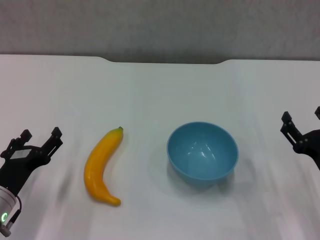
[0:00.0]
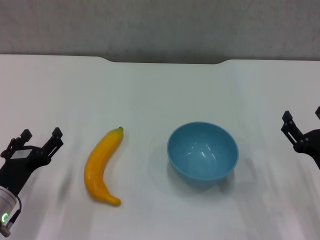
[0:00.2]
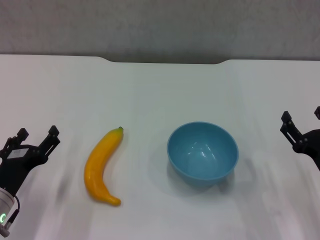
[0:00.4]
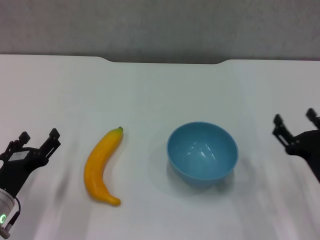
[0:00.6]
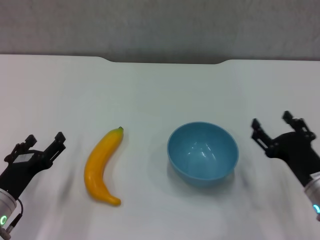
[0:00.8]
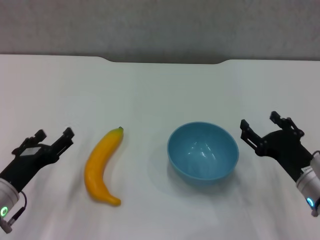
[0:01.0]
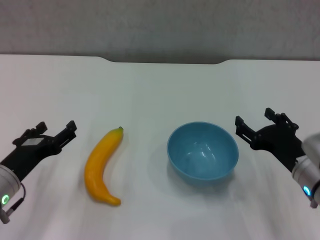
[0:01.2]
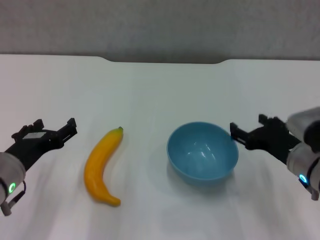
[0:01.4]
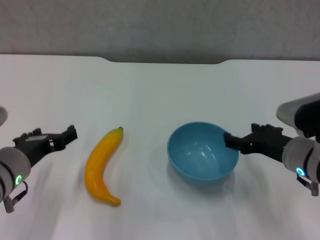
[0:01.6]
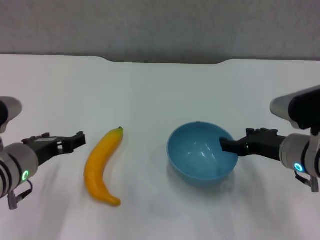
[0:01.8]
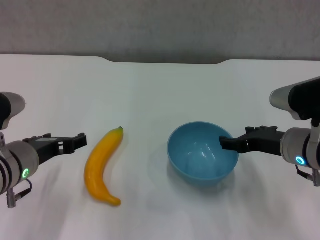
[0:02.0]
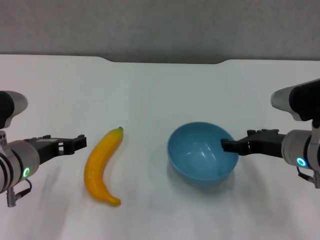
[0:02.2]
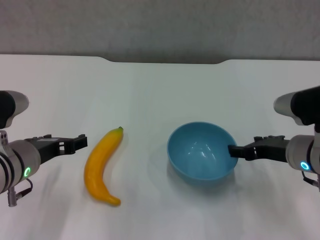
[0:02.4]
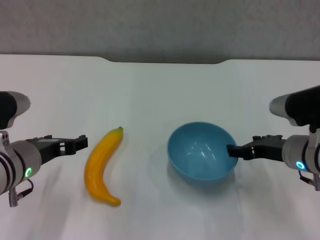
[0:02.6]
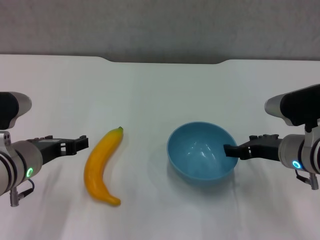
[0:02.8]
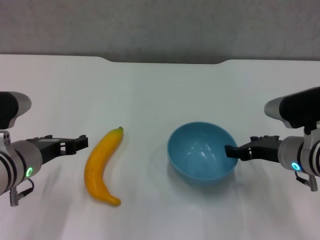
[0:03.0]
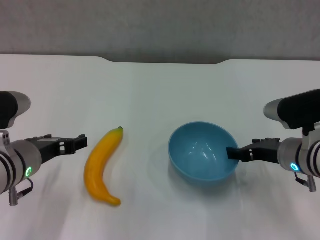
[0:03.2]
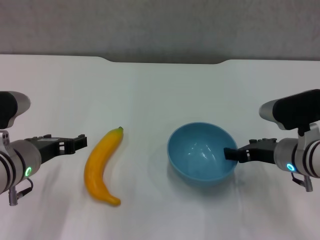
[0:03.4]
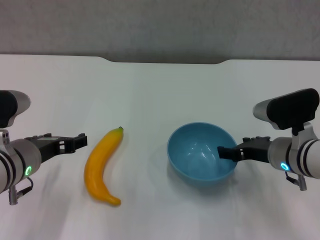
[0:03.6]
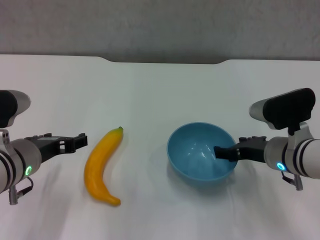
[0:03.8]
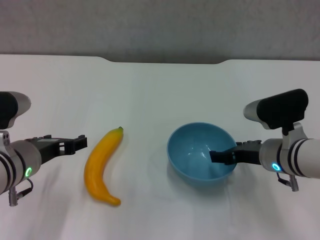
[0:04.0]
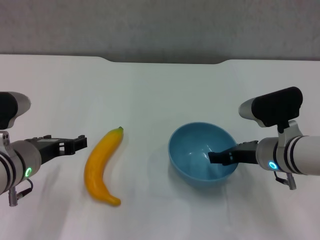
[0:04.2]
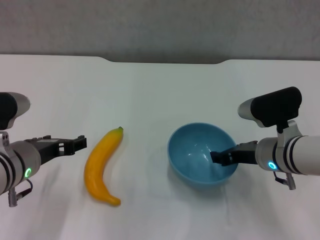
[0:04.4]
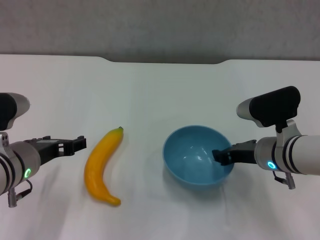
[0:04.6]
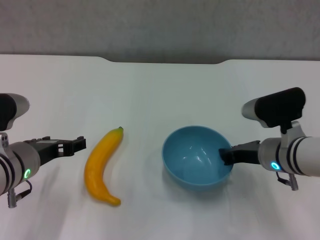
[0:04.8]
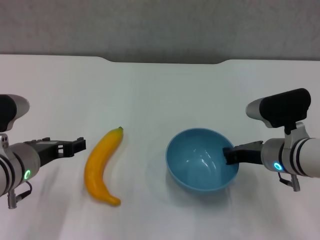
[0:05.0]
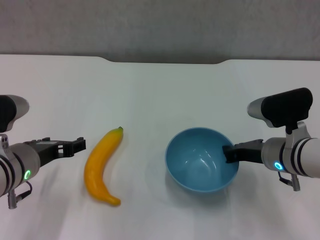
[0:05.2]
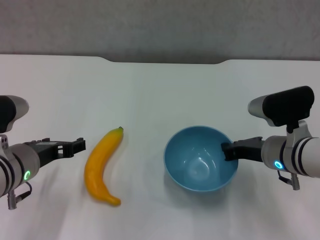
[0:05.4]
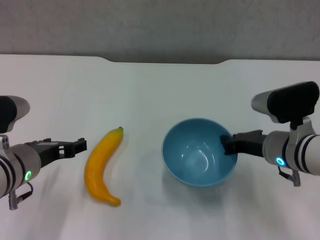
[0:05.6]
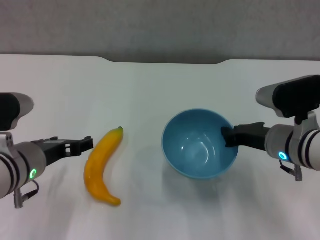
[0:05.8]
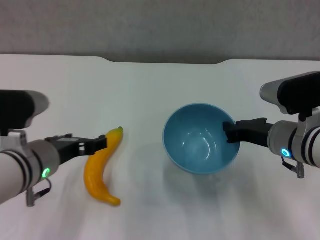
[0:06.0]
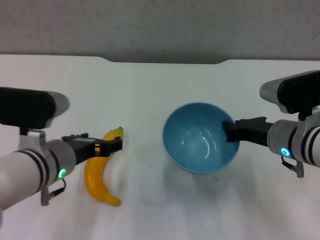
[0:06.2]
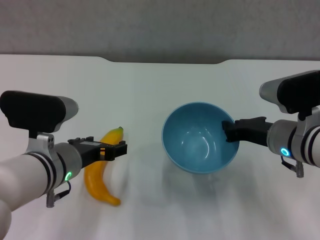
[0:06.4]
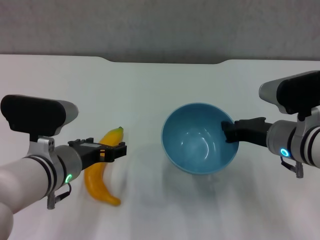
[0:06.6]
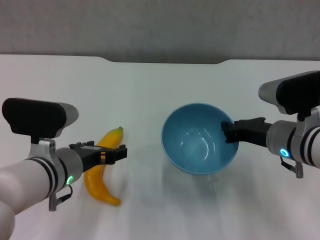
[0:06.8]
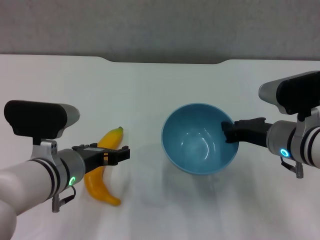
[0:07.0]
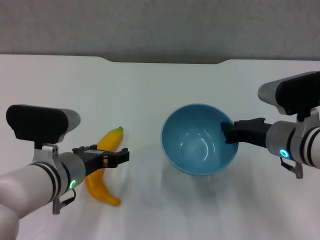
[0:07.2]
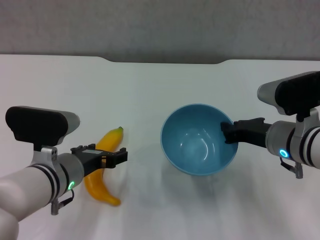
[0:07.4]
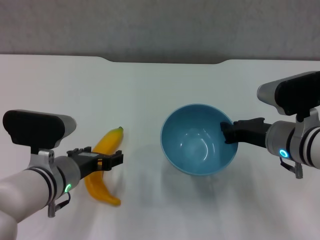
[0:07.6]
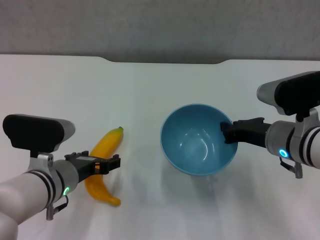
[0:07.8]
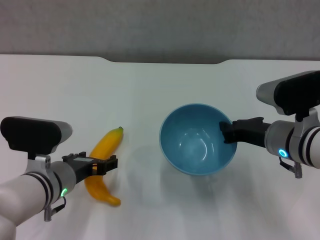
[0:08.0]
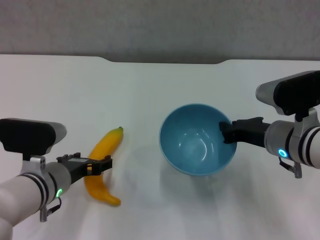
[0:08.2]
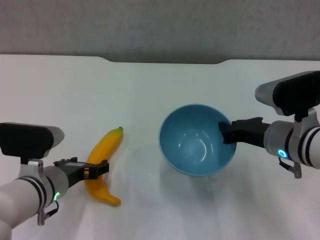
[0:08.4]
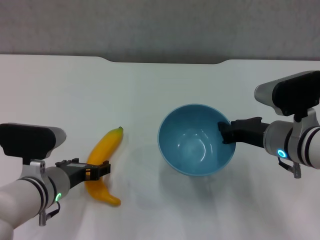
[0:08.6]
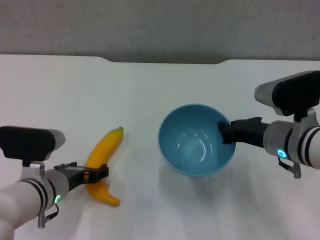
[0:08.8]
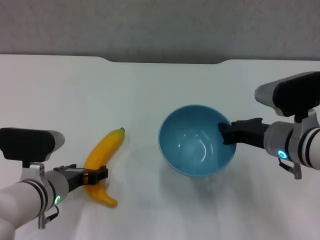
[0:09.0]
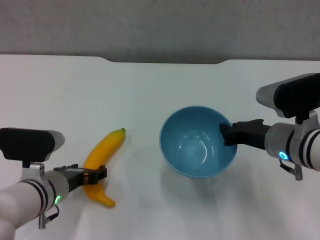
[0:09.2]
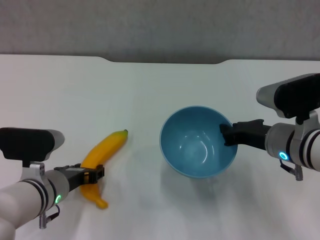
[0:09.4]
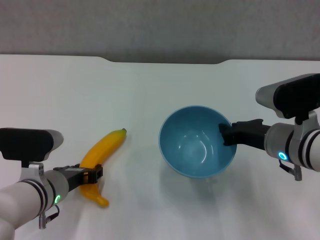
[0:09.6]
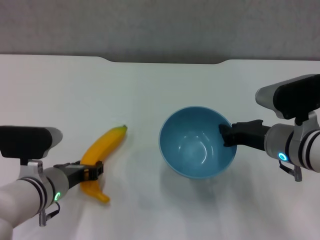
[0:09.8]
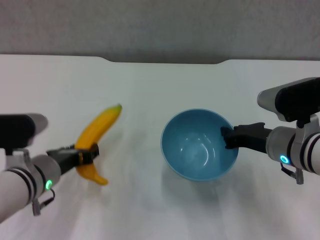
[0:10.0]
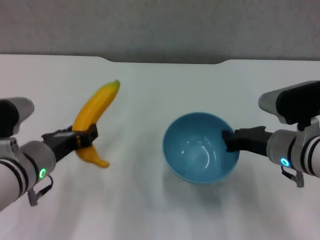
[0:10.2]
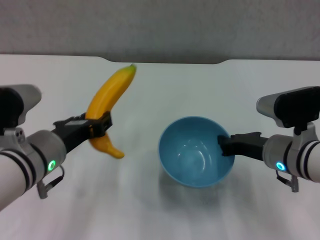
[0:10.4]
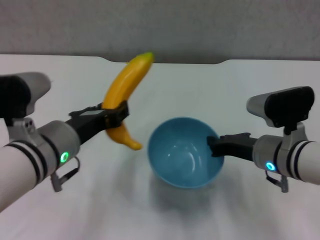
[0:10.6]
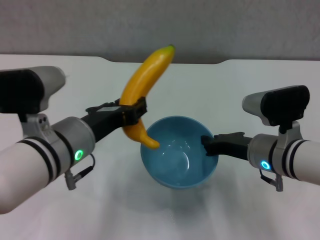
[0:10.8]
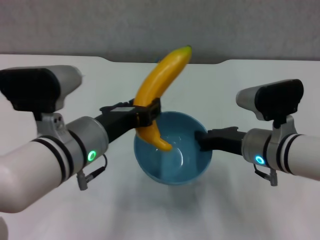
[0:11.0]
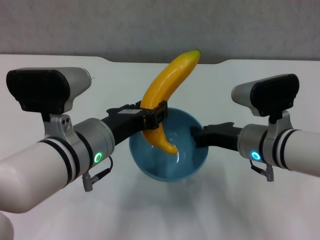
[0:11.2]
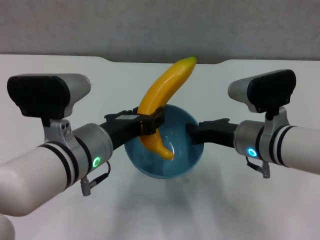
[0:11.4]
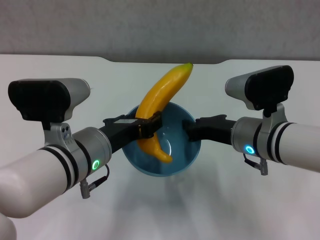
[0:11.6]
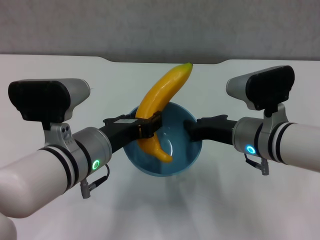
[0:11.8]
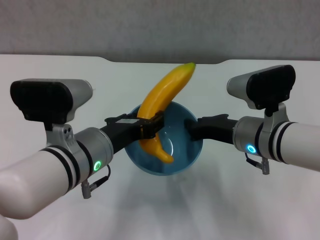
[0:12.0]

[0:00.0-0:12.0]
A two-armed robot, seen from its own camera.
Step, 0.0 to 4.8 s: Grasp the blue bowl with right gripper.
Step, 5.0 to 6.0 s: Lift the blue bowl with right gripper.
Step, 6.2 to 9.4 s: Grasp the banana with left gripper.
0.0 to 1.6 s: The left gripper travels upward by some 10 cm; the right gripper is displaced upward, forward and to the left by approximately 10 cm.
1.6 to 4.4 s: The grippers stay close to where they were, moving slightly.
4.4 to 6.0 s: The right gripper closes up.
6.0 to 7.6 s: The left gripper heads downward, covering roughly 5 cm.
7.6 to 9.0 s: There are only small adjustments of the grippers.
9.0 to 10.4 s: The left gripper goes about 10 cm upward, and closes its fingers.
10.4 to 12.0 s: The right gripper ends up about 5 cm from where it was. The left gripper travels to the right by approximately 5 cm.

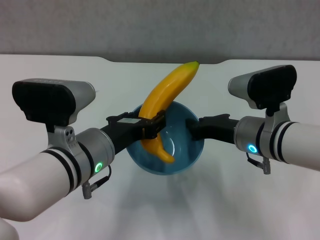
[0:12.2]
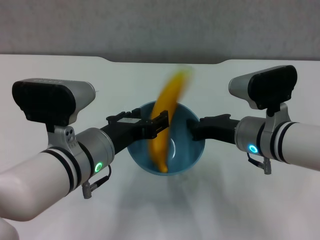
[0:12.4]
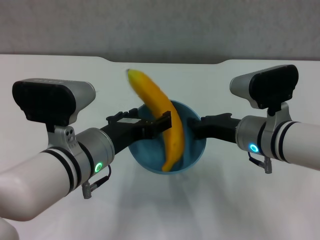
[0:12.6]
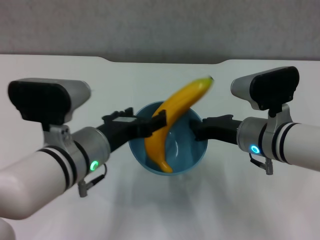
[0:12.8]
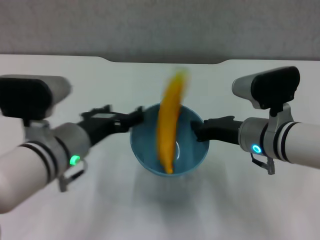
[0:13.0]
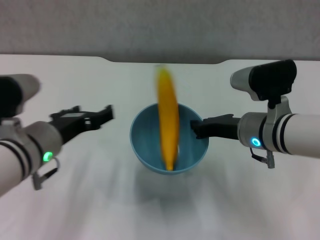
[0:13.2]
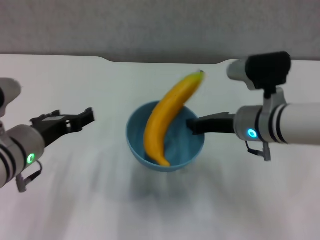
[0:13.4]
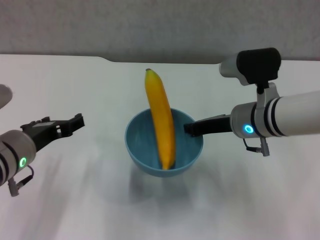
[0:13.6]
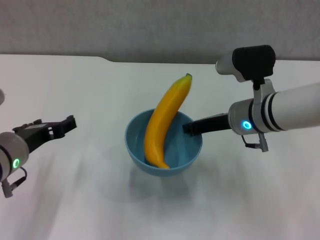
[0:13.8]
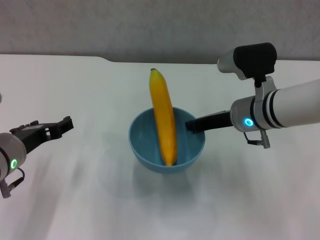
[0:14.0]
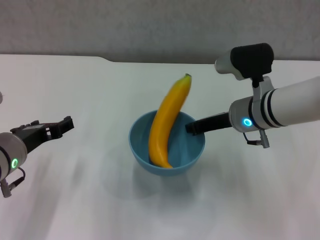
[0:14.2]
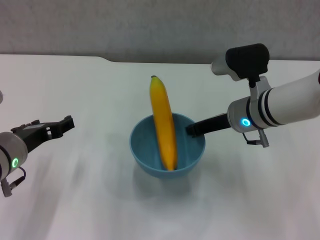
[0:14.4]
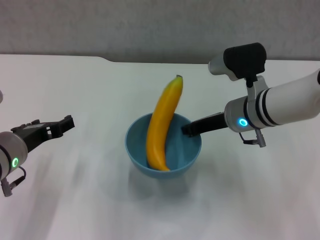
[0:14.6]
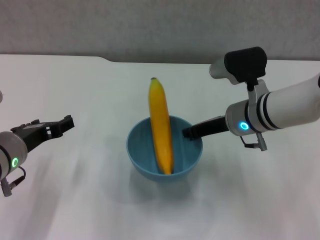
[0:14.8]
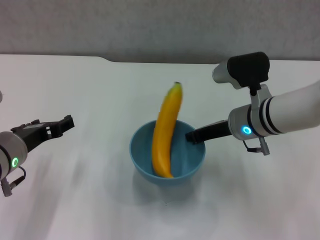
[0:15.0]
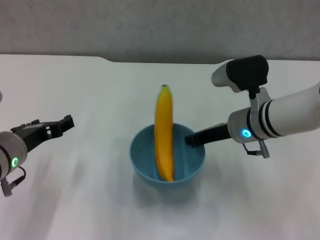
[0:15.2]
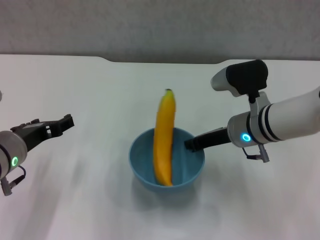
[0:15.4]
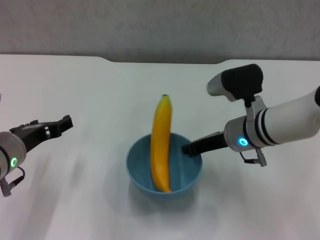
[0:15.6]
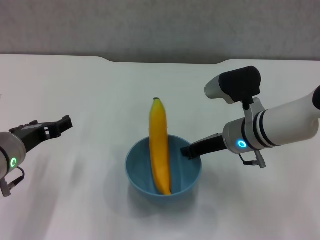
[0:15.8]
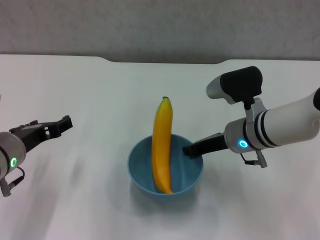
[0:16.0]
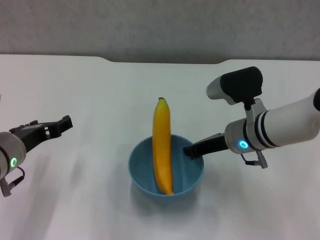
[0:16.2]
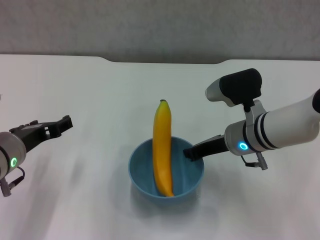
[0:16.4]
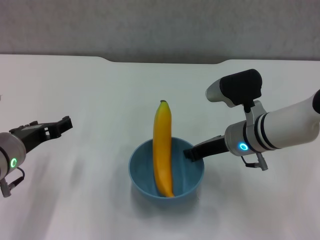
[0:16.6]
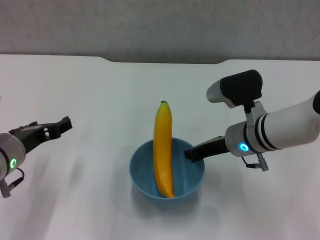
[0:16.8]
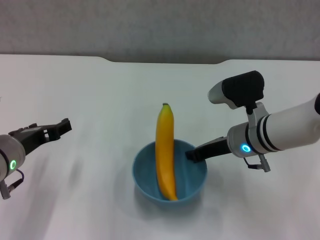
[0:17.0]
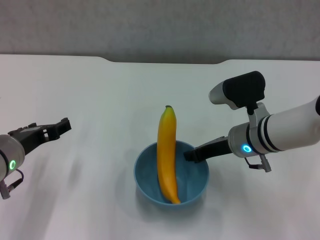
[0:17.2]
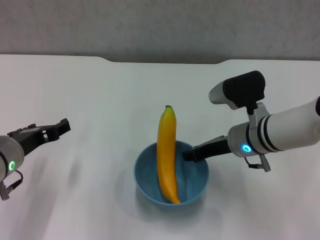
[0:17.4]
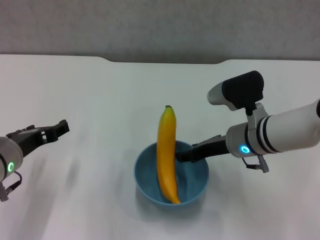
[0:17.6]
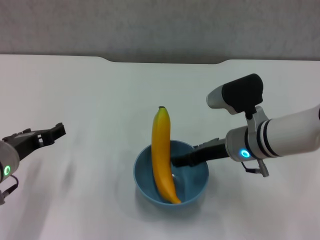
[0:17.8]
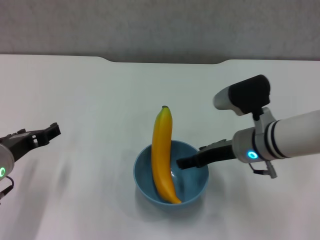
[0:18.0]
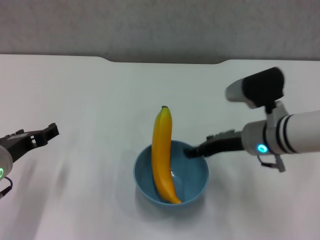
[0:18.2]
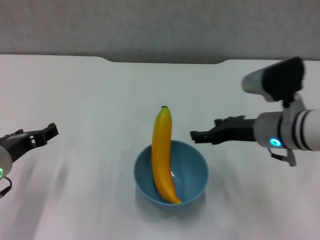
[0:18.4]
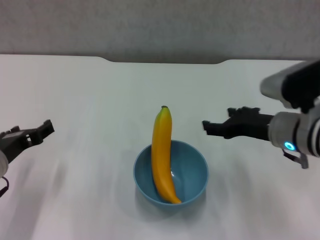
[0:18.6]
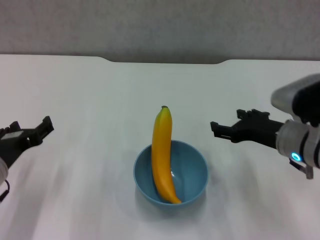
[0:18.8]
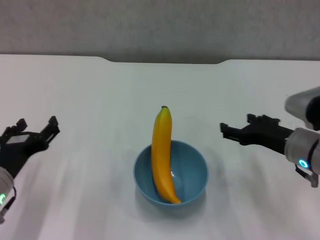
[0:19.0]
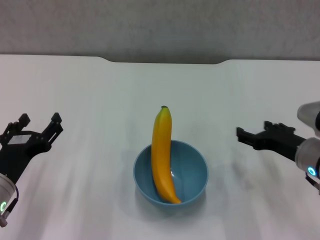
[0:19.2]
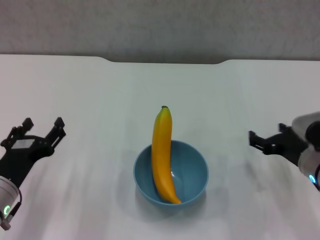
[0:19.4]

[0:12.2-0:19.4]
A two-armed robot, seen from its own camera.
Step, 13.0 to 18.2 s: Place the bowl on the table with right gripper.
12.2 to 13.6 s: The left gripper travels to the left by some 10 cm, and opens up.
13.6 to 16.6 s: The grippers make only small movements.
16.6 to 18.0 s: The right gripper opens.
18.0 to 19.4 s: The right gripper travels to the right by about 10 cm. Meanwhile the left gripper shifts roughly 5 cm downward.

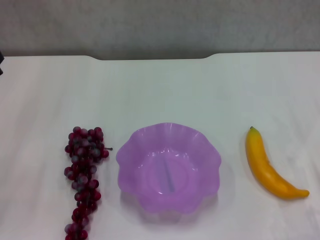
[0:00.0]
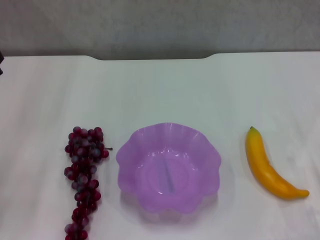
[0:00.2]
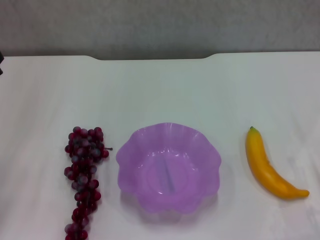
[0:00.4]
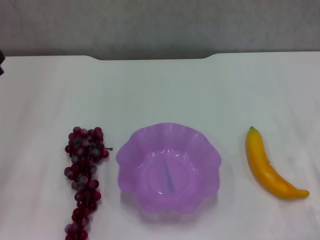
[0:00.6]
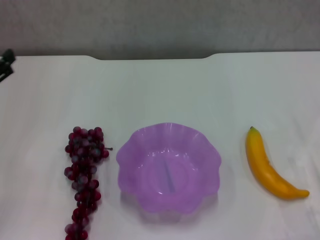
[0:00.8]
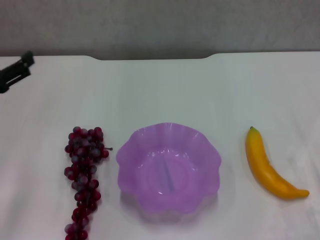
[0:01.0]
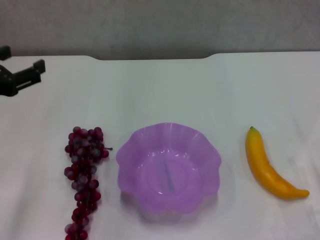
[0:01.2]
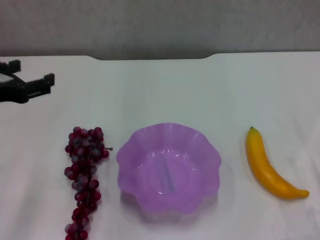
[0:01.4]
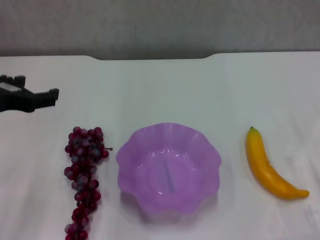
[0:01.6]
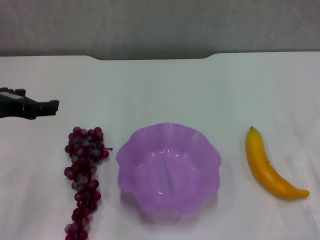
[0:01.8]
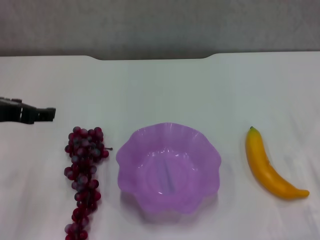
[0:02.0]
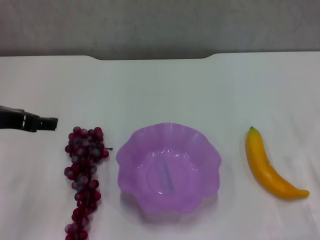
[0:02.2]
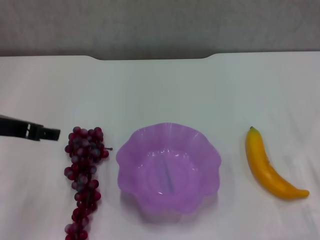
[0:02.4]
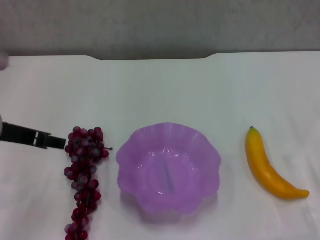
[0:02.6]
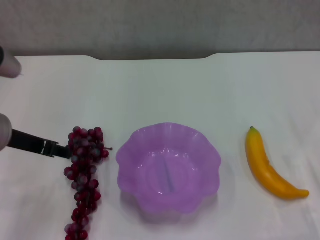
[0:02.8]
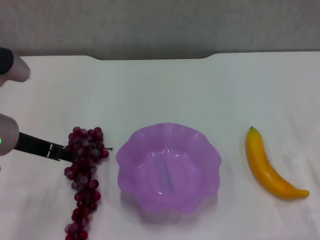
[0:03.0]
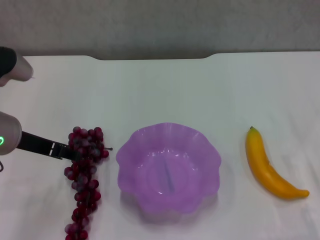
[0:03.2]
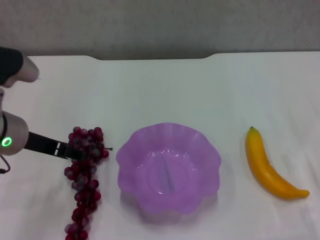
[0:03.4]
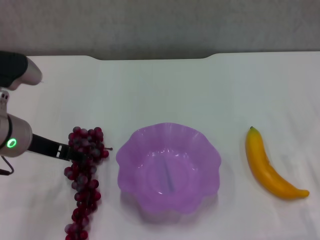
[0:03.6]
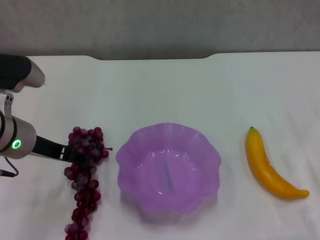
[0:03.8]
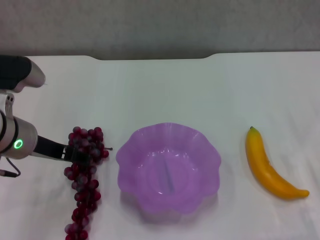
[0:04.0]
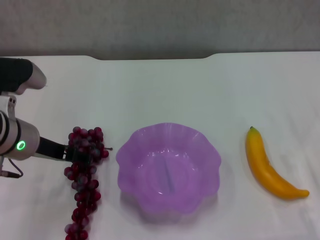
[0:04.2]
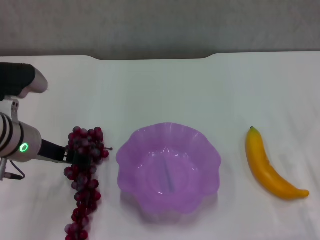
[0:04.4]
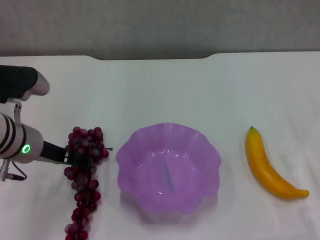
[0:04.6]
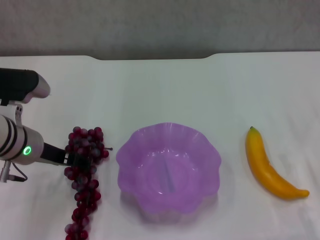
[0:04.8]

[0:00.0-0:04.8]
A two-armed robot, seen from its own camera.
0.0 to 1.6 s: The left gripper is displaced upward and to the right by roughly 10 cm.
1.6 to 3.2 s: The left gripper moves about 5 cm.
3.2 to 4.8 s: The left gripper is displaced downward by about 5 cm.
